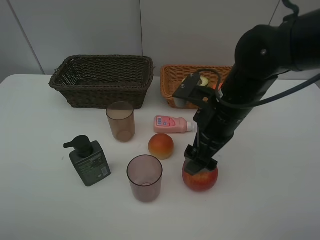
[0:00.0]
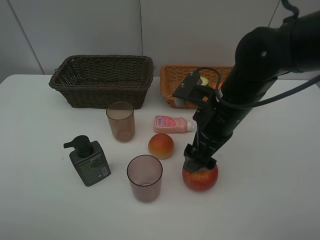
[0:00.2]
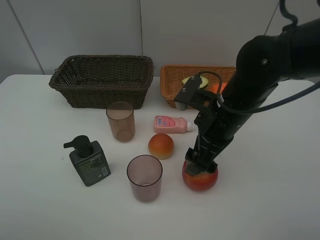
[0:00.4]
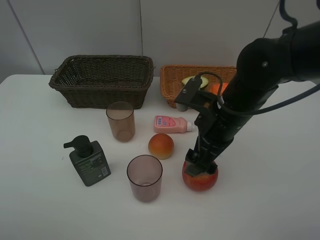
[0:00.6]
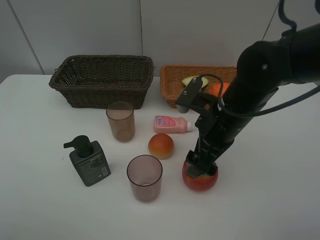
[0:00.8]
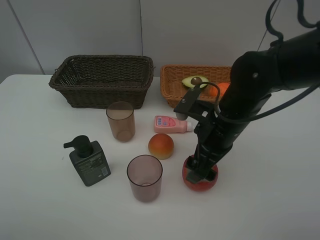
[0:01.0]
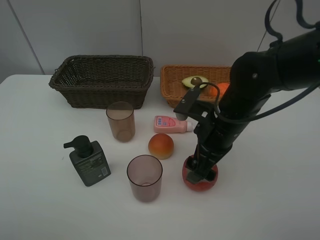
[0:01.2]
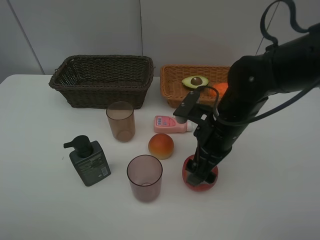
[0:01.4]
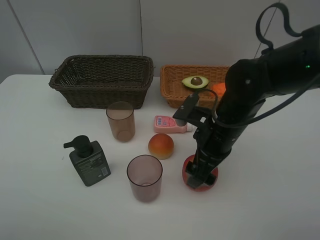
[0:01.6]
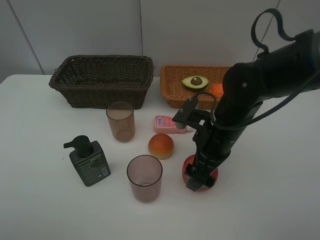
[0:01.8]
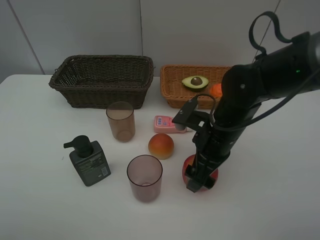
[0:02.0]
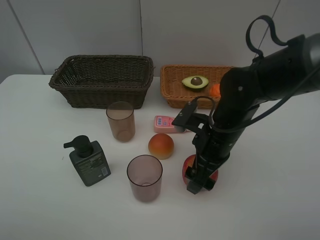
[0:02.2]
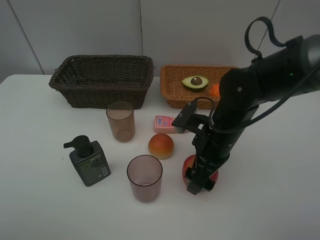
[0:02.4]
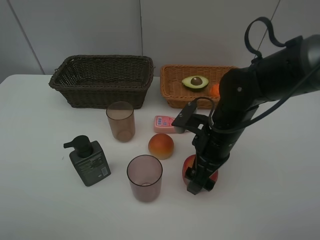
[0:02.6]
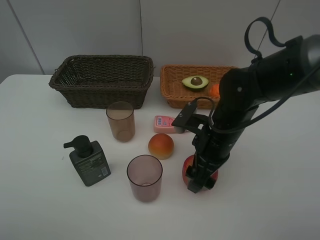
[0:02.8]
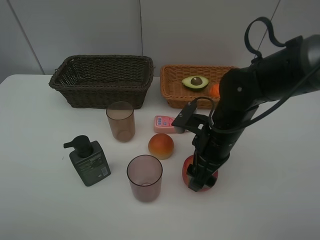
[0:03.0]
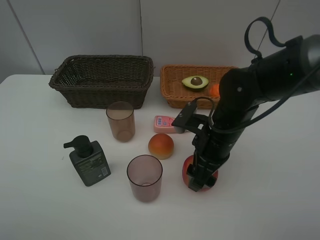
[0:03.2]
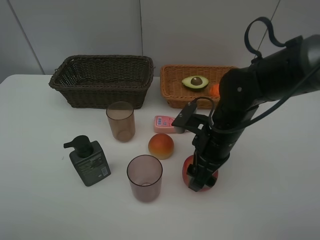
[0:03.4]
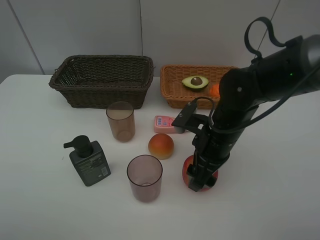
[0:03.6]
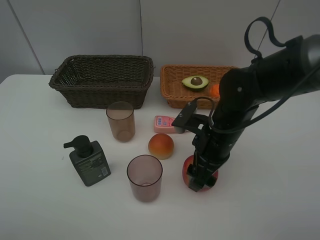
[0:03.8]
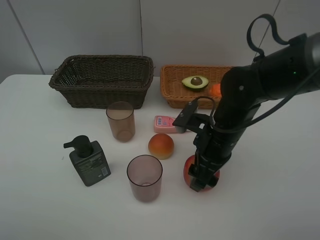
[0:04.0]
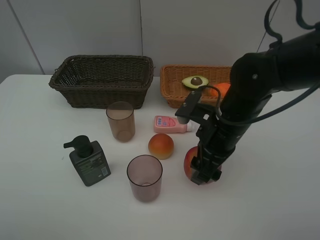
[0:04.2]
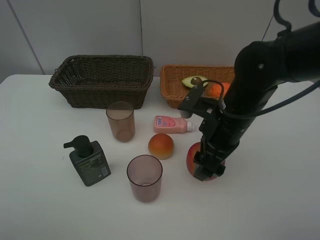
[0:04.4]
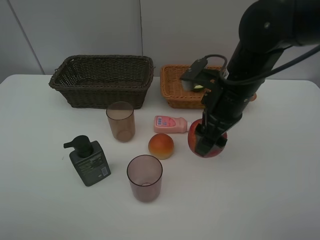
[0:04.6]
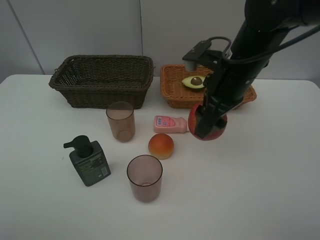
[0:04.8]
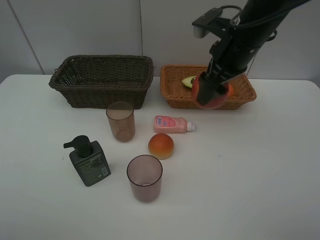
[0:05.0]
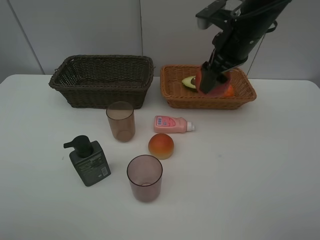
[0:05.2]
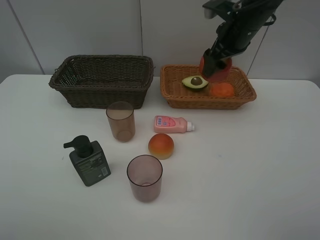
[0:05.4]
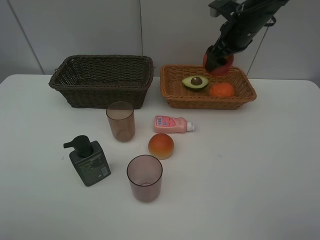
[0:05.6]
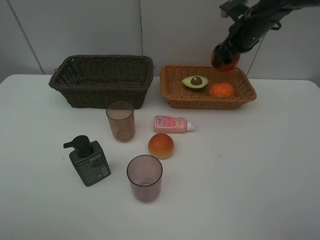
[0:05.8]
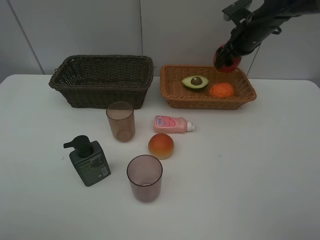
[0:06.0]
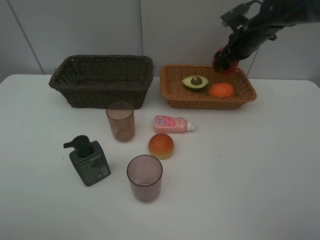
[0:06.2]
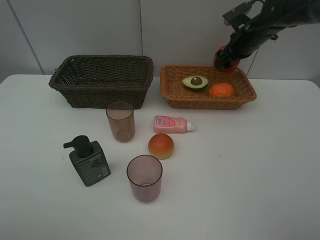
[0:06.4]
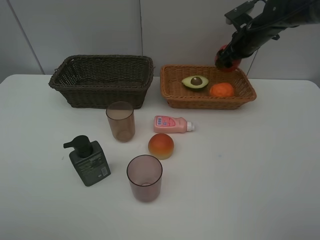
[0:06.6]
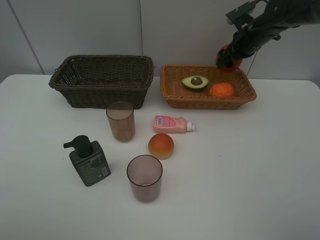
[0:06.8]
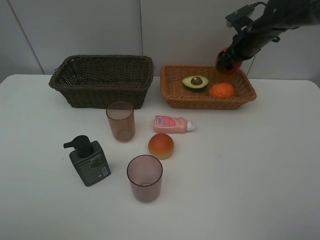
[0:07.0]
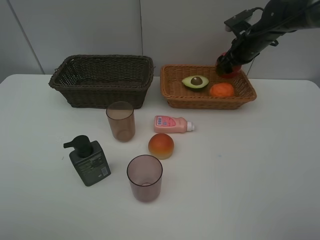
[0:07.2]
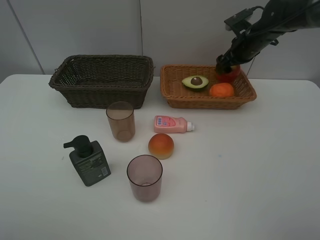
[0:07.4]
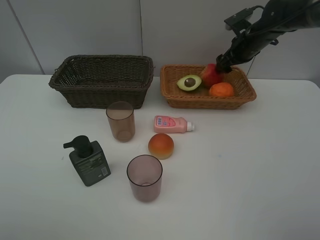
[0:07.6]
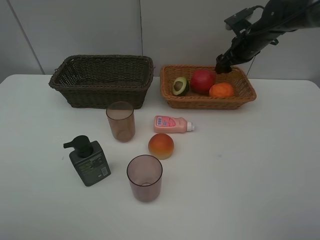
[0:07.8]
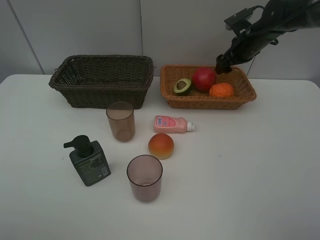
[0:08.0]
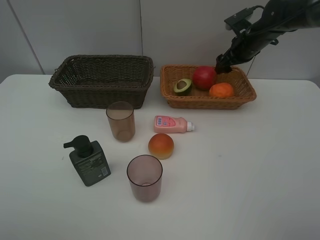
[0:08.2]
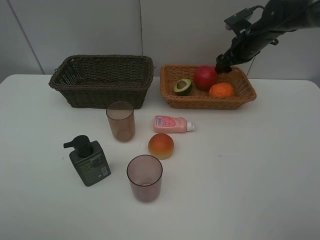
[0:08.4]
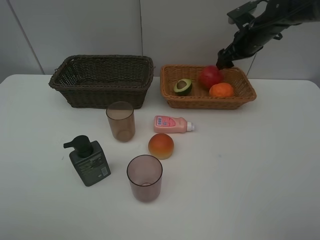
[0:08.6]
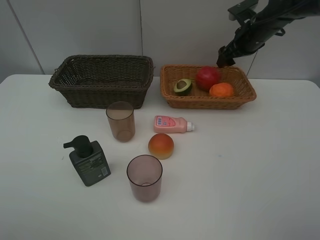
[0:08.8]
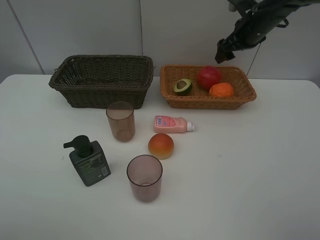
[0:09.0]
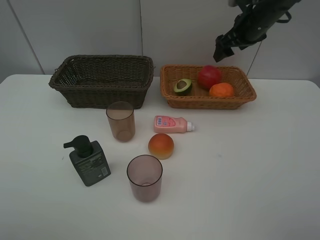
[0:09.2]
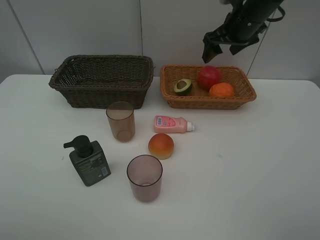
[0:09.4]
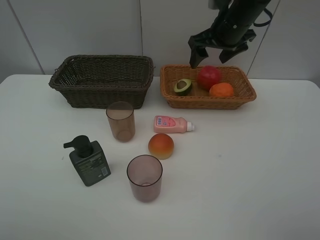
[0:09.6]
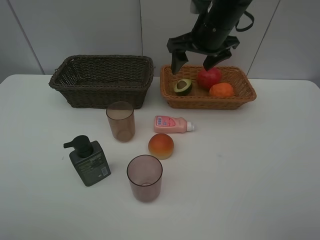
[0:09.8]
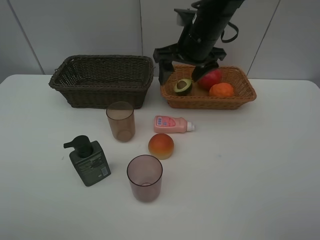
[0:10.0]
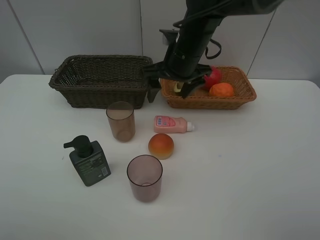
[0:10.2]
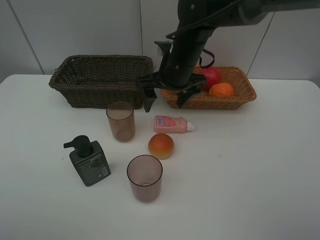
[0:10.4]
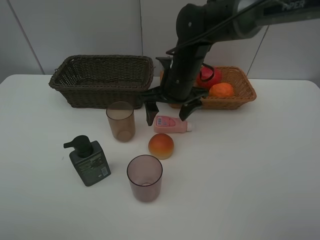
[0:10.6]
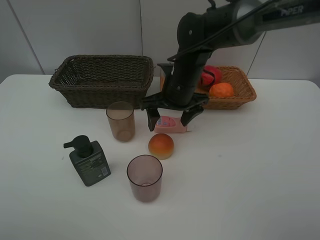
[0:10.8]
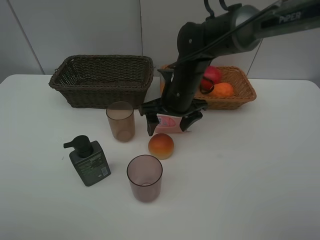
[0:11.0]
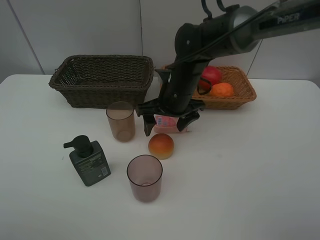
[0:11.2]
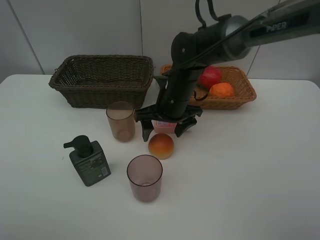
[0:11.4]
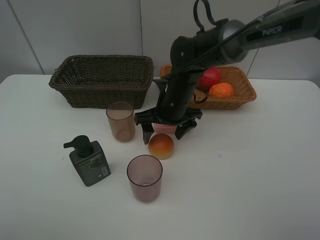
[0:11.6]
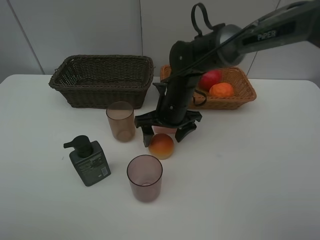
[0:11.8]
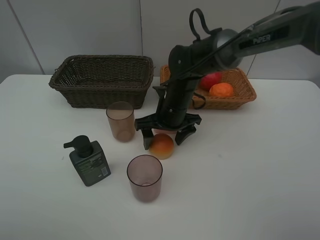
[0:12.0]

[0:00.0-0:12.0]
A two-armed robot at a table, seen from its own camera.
Task of the whole recording: Place multiple objects separately in different baskets.
Step, 0:00.0 to 0:04.4: Pick up the apple with right gripper.
Step, 0:04.6 to 0:08.0: Place the apple in the light basket with right gripper.
0:00.0 to 0:01.6: The grippers make only small movements.
0:01.6 to 0:03.0: The right gripper closes its fingers.
0:03.0 to 0:04.4: The grippers move only a little.
0:04.4 to 0:06.0: The right gripper heads forward and to the right, covering roughly 25 cm.
0:06.0 to 0:07.6: The grippers make only small movements.
0:07.6 to 0:09.0: The right gripper goes about 5 cm upward.
0:09.0 to 0:10.4: The right gripper heads to the left and backward, covering roughly 20 cm.
0:10.4 to 0:12.0: The right gripper is displaced downward by approximately 10 cm.

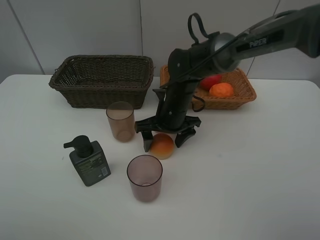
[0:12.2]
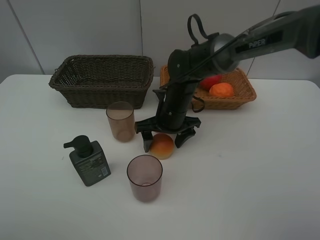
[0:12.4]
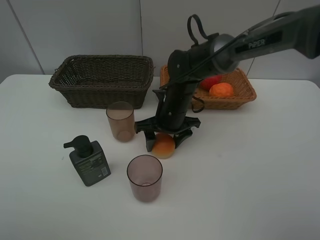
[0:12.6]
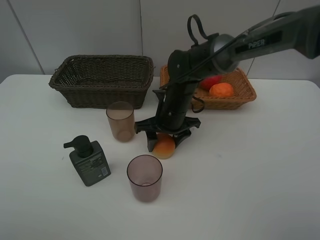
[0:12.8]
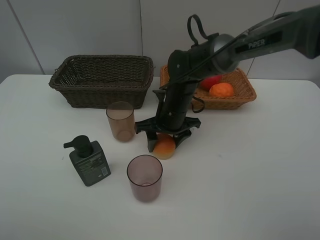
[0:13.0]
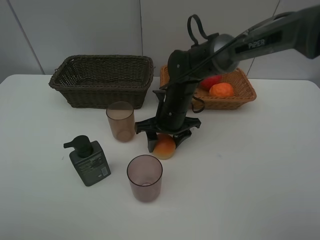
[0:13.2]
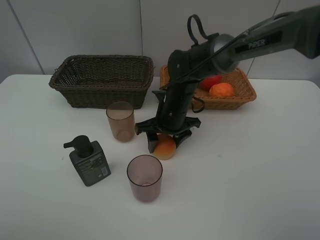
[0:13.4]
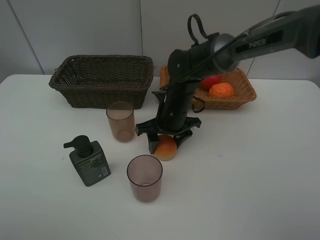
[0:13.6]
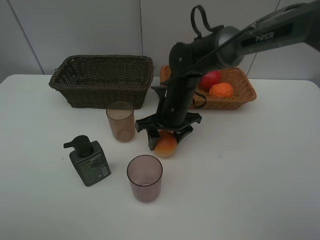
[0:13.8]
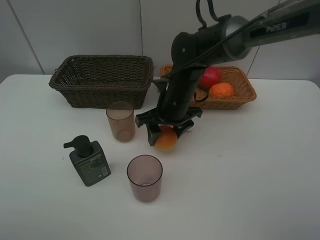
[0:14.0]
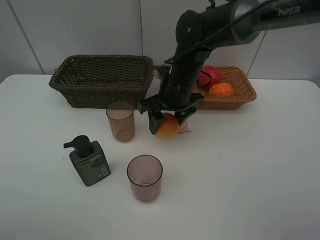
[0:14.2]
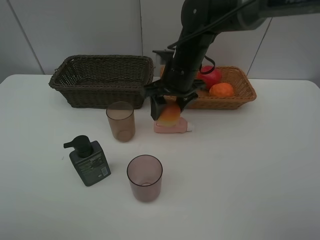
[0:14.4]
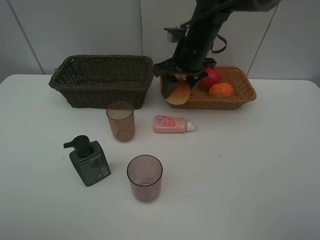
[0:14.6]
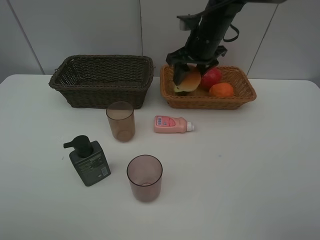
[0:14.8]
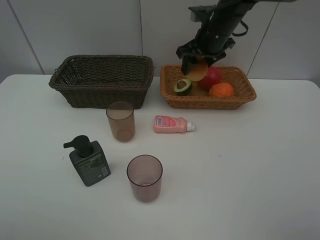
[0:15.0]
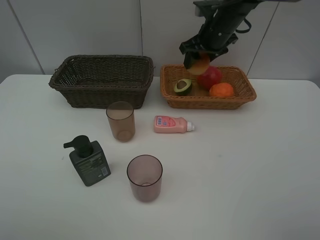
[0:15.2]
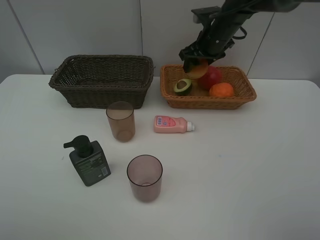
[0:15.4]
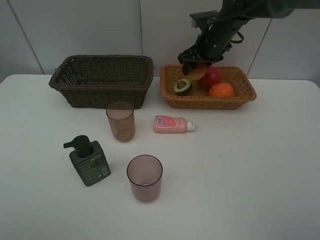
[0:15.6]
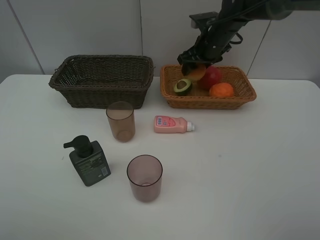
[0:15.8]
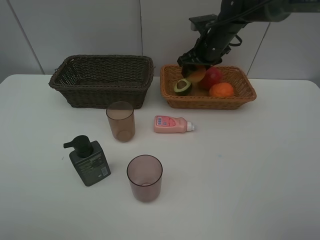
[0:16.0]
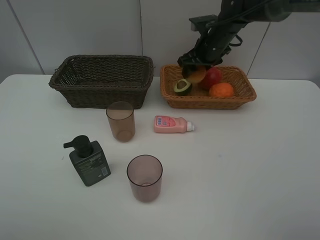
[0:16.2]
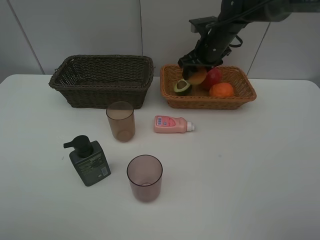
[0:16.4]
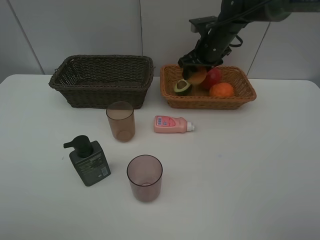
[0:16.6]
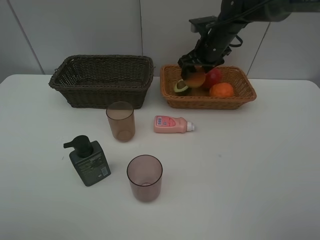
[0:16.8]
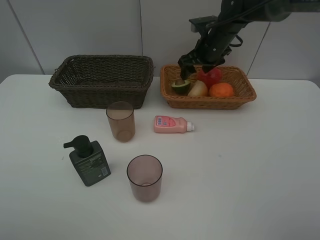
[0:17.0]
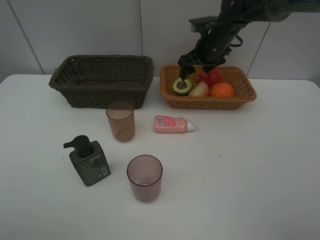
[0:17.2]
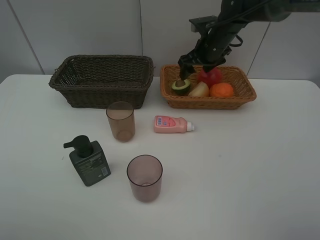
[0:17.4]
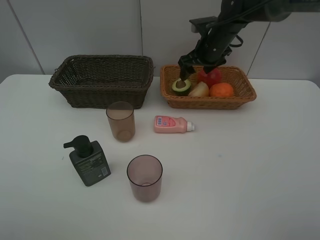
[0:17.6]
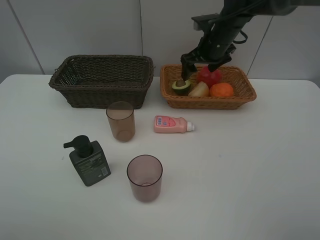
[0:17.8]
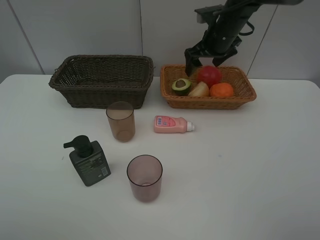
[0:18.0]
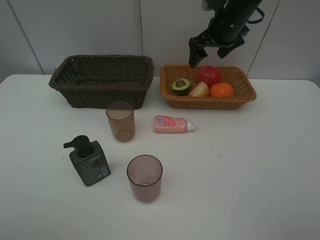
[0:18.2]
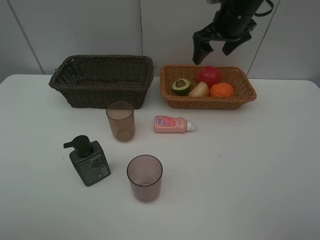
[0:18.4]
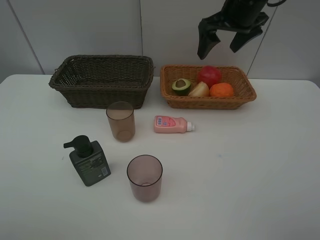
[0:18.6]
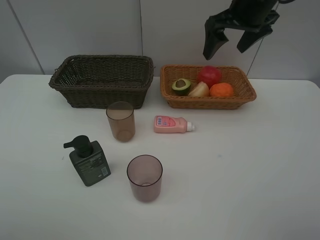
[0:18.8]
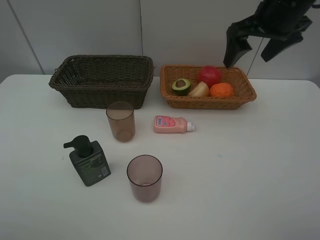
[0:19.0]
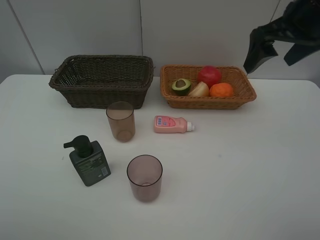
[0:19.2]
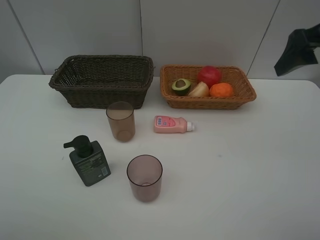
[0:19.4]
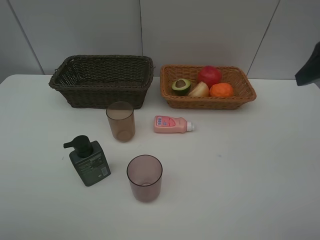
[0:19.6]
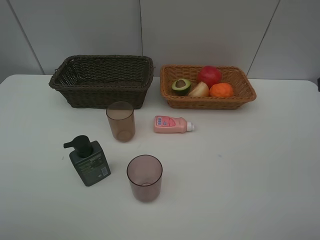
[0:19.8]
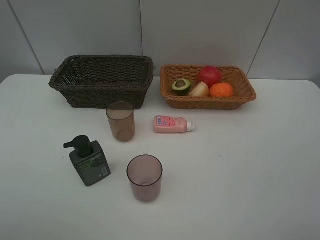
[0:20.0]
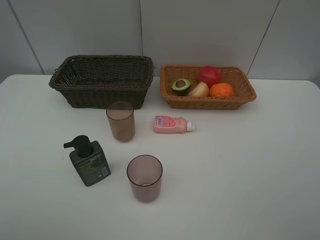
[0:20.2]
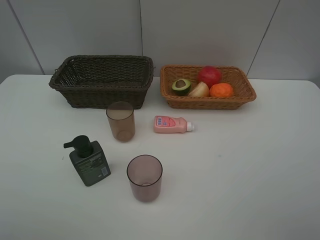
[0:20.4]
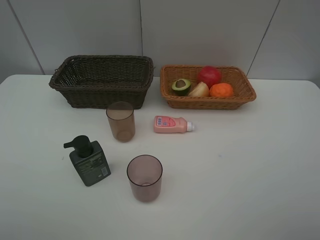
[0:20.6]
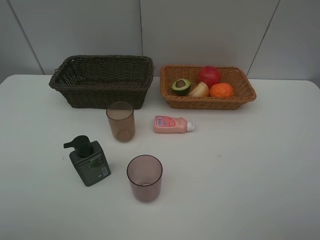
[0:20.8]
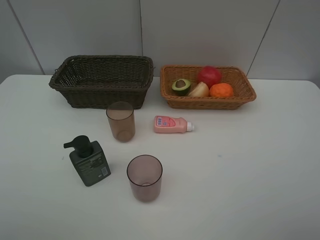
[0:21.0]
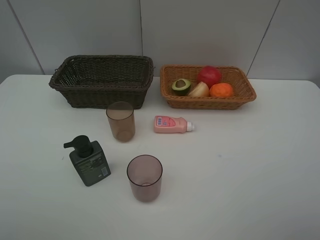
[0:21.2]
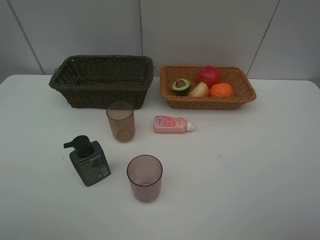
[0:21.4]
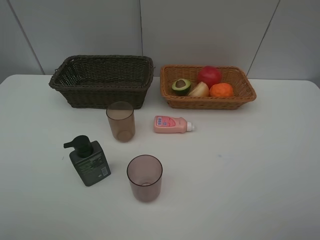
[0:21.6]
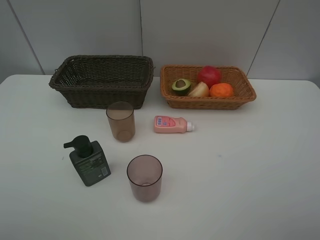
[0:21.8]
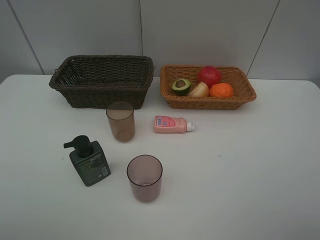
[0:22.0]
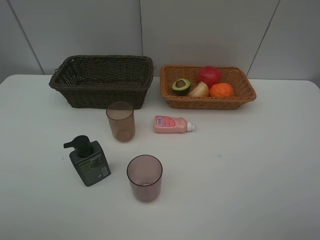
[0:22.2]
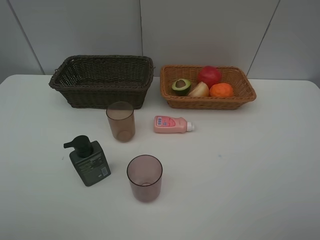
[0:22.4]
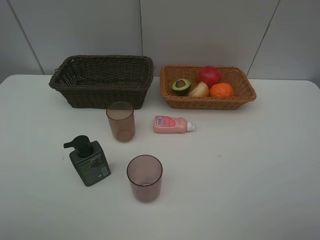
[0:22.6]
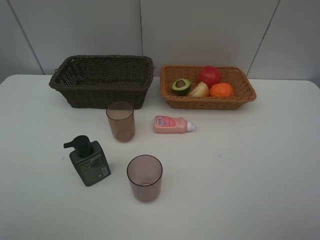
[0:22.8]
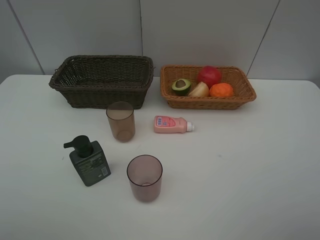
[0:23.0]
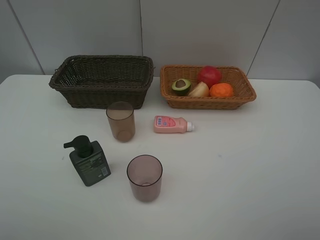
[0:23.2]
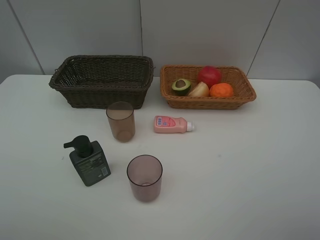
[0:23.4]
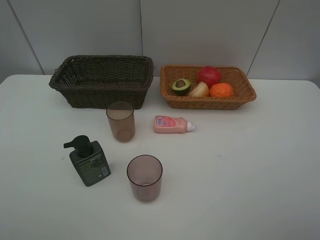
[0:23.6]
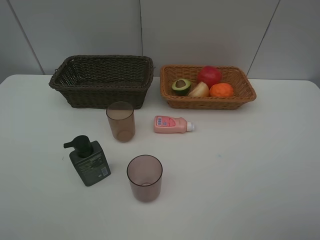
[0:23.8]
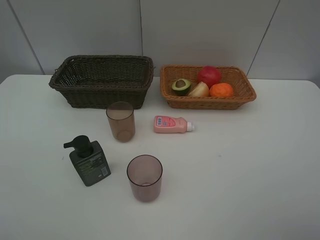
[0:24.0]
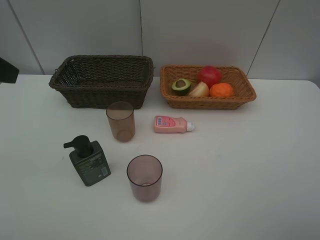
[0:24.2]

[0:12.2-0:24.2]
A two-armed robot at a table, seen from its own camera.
Task of the whole recording: Place multiple objects separately in different baskets.
Step, 0:14.2 to 0:17.0: Place the bread in the light basket with right gripper.
0:12.2 to 0:13.8: The right gripper closes.
0:13.8 to 0:15.2: The right gripper shifts roughly 20 cm upward, forward and to the right.
0:15.2 to 0:16.6: There are only small adjustments of the grippers.
0:16.6 to 0:18.2: The right gripper shifts about 5 cm upward, and opens its fingers.
0:18.2 to 0:19.8: The right gripper goes some 30 cm backward and to the right.
0:21.2 to 0:22.6: The two grippers keep their place.
